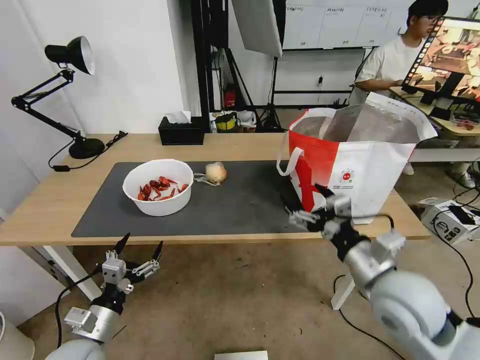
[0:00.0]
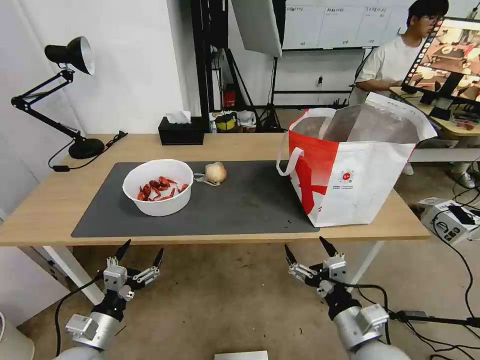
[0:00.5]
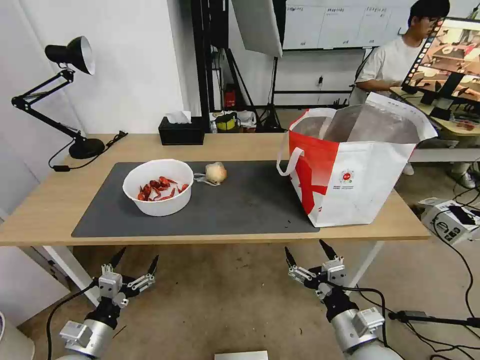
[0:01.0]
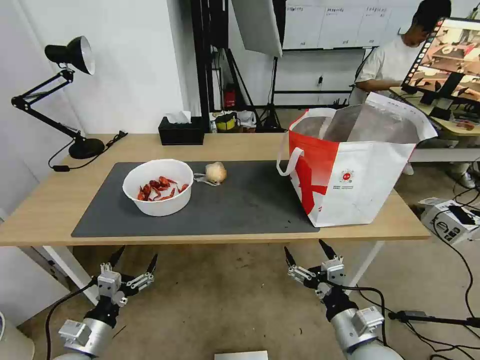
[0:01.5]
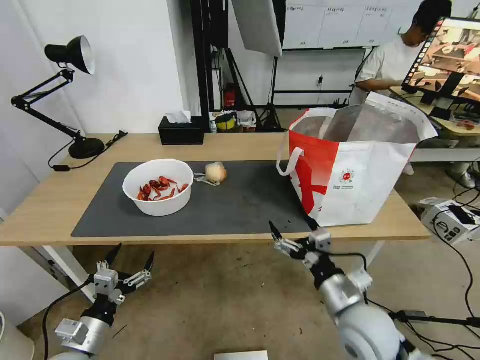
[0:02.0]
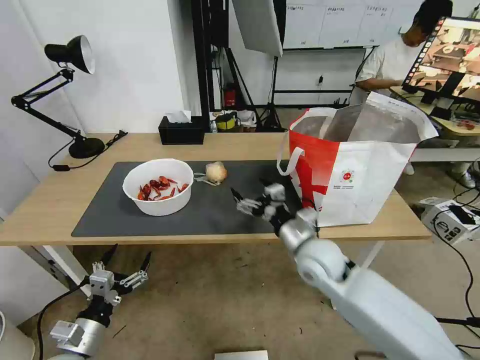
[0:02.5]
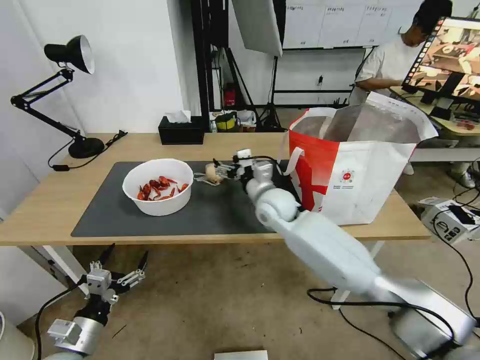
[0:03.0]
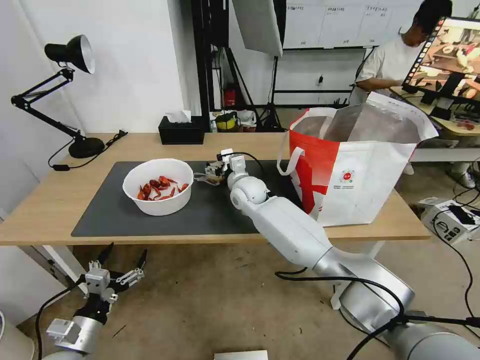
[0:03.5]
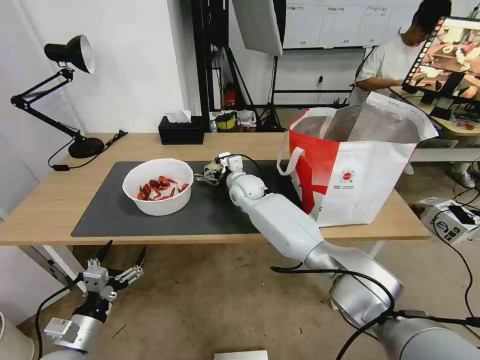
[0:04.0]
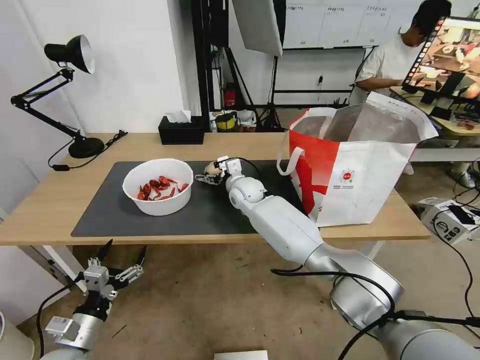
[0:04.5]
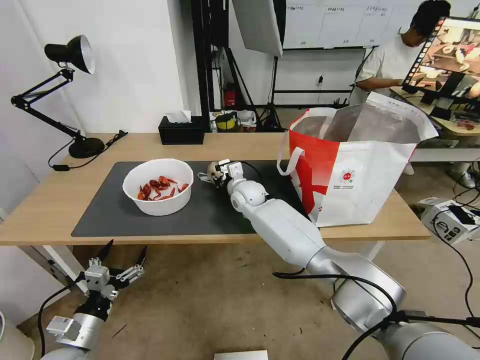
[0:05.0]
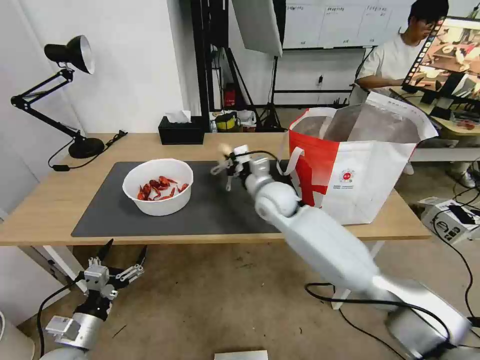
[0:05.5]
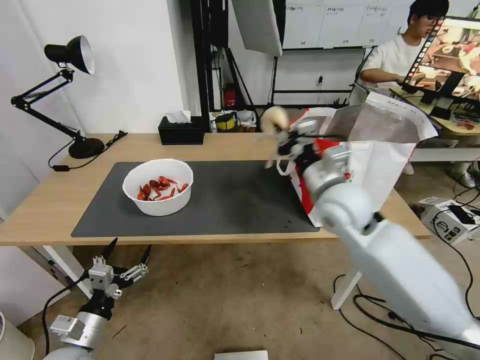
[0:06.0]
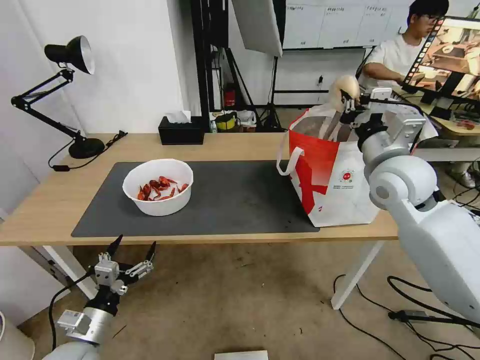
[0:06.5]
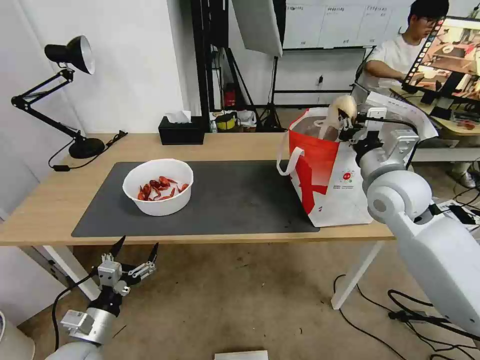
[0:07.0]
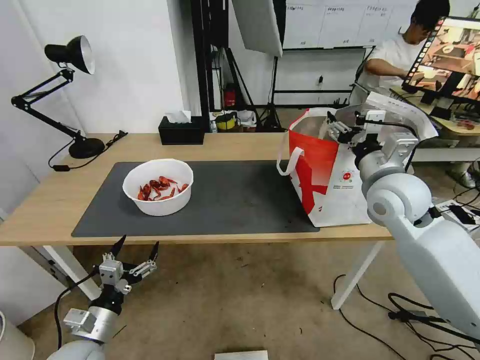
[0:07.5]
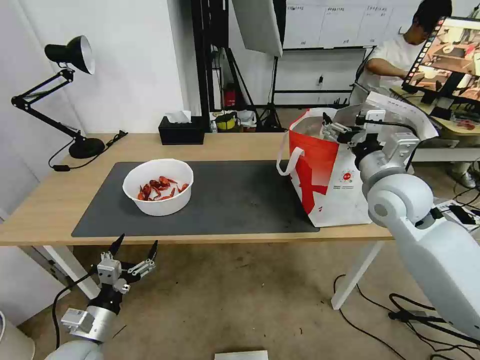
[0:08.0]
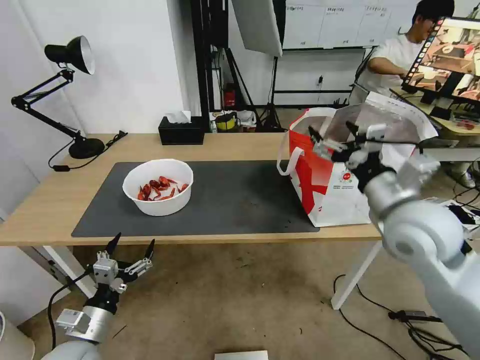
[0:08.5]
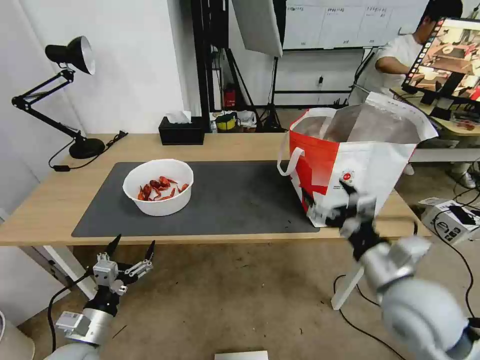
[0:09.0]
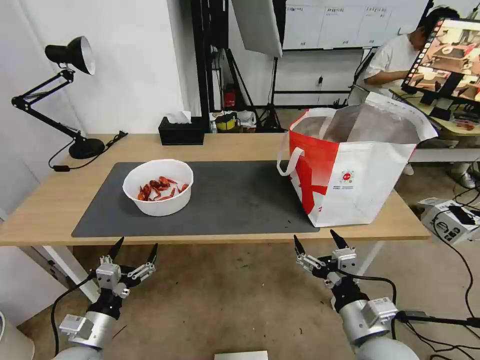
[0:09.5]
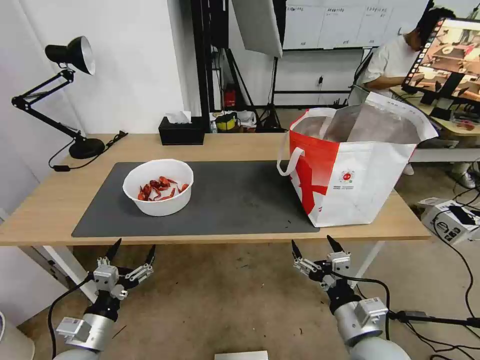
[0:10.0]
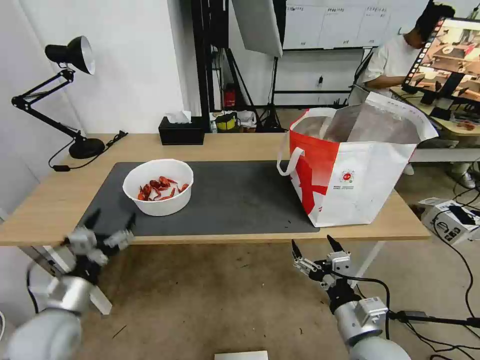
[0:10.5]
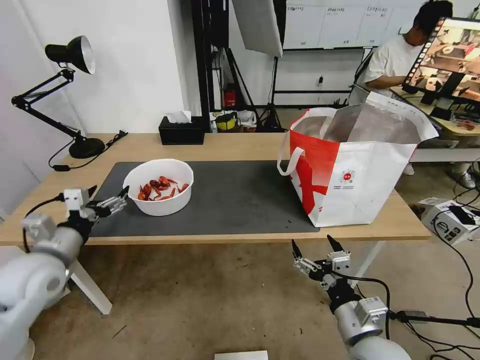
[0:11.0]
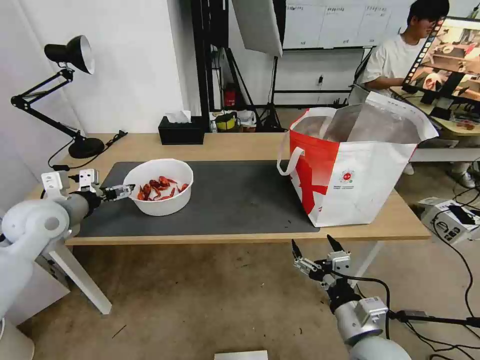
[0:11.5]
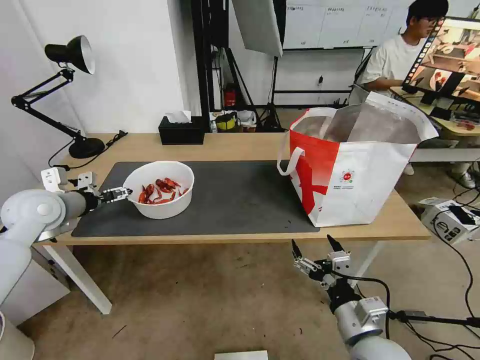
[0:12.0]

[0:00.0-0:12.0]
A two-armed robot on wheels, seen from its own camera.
Task of the whole recording: Pick up the trash from the table and place it into the takeout bag.
0:00.0 to 0:02.0: The right gripper is displaced downward by roughly 10 cm.
0:02.0 to 0:04.0: The right gripper shifts roughly 40 cm forward and to the left.
0:04.0 to 0:06.0: The right gripper goes approximately 30 cm to the right, backward and upward, and closes up.
0:06.0 to 0:08.0: The right gripper heads to the right, covering some 10 cm, and opens its fingers.
0:08.0 to 0:10.0: The right gripper goes some 30 cm backward and downward.
0:10.0 to 0:12.0: The left gripper goes some 30 cm forward and upward.

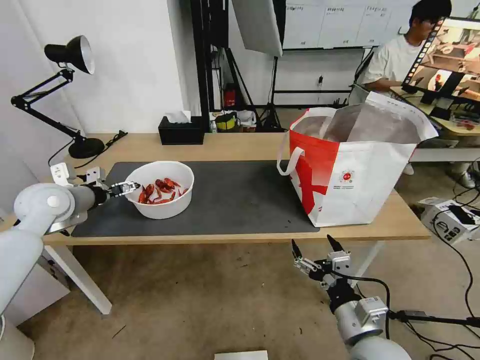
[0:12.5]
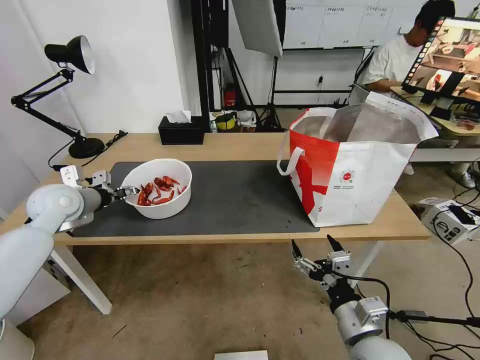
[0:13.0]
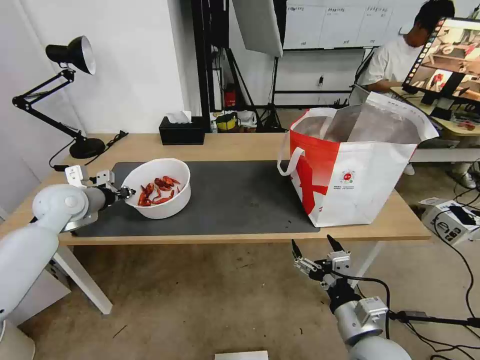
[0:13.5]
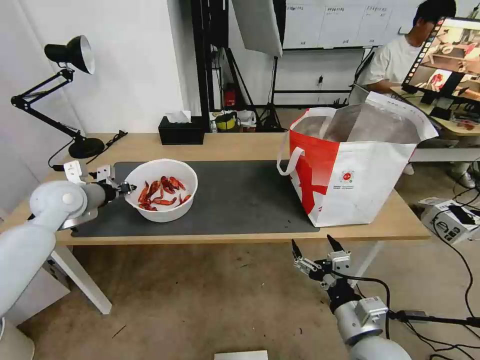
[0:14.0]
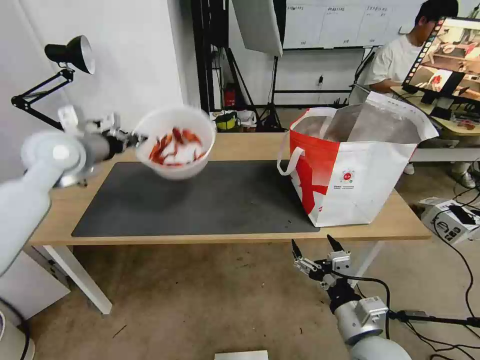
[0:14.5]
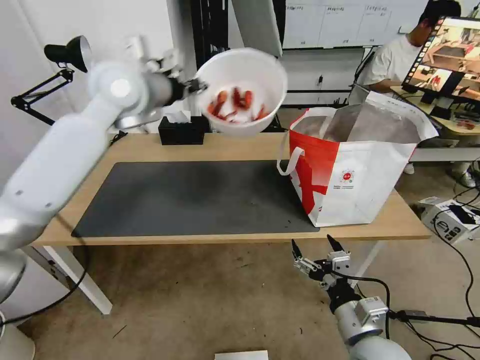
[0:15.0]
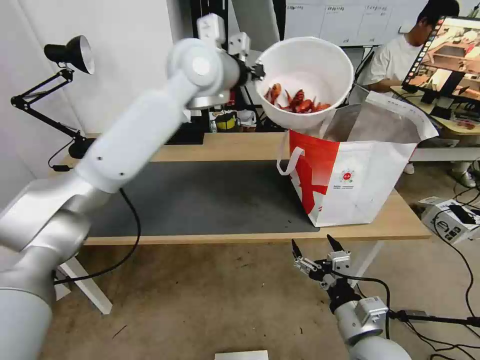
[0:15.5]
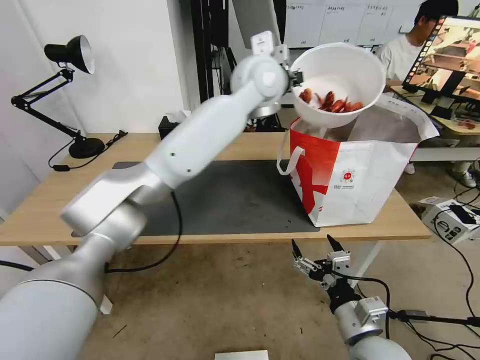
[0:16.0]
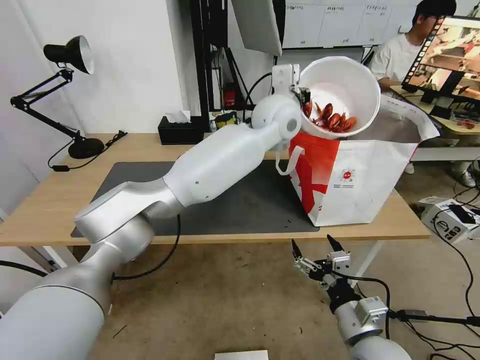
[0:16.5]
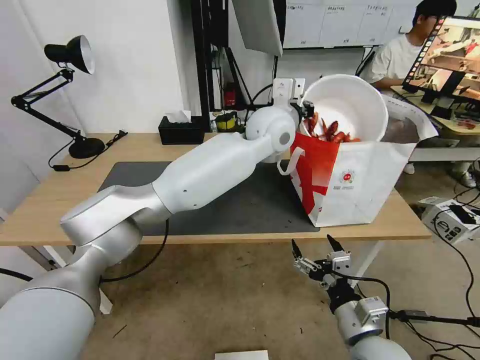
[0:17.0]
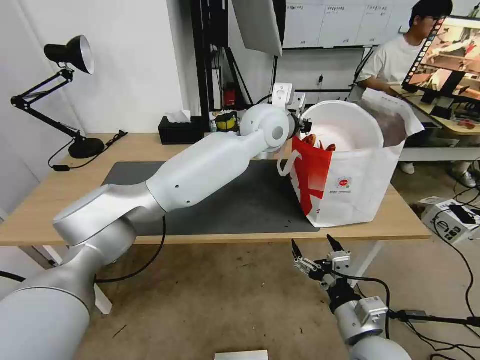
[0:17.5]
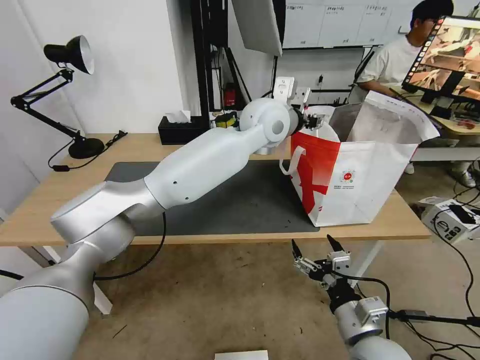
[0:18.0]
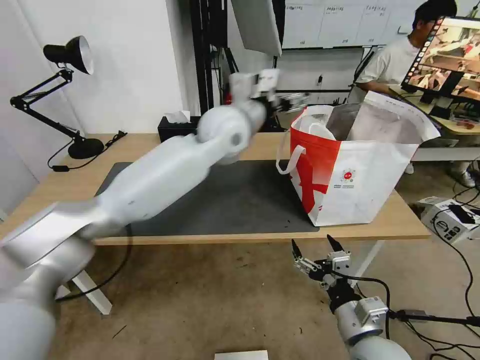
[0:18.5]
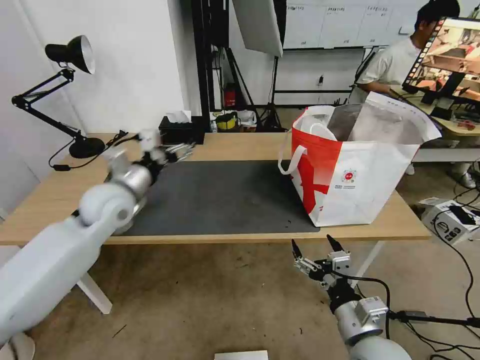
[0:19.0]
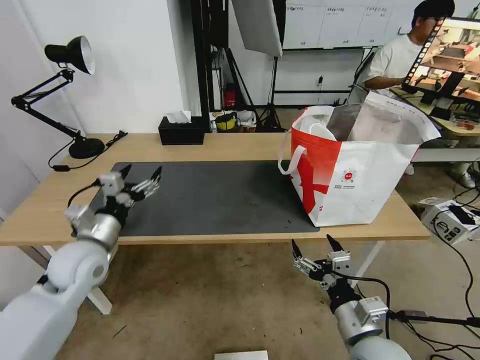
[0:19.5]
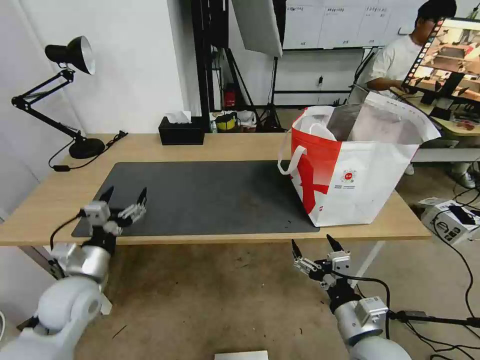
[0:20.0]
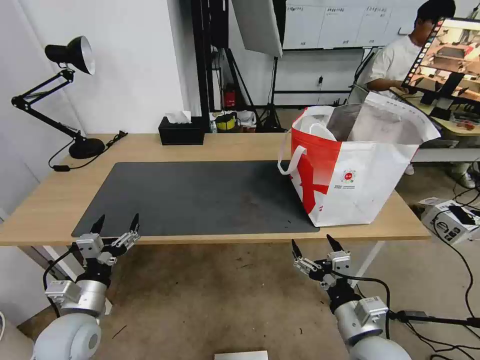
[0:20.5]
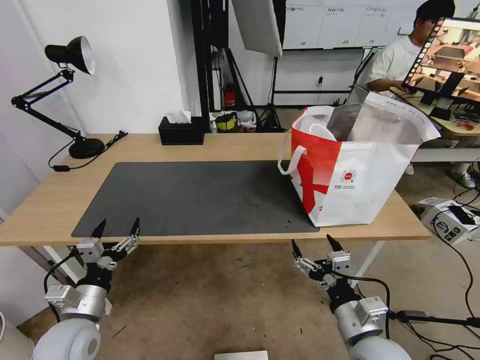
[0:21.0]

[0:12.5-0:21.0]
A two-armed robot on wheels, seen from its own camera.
Task of the whole recording: Pick up the trash from the table and place it into the takeout bag.
0:12.5 to 0:14.5: The left gripper shifts roughly 10 cm upward and to the right, and closes.
0:14.5 to 0:16.5: The left gripper travels to the right by about 40 cm.
0:16.5 to 0:19.0: The left gripper moves to the left, about 35 cm, and opens its fingers.
0:19.0 to 0:21.0: The left gripper moves backward and downward, approximately 25 cm.

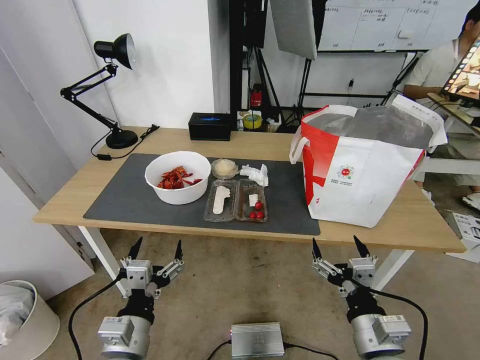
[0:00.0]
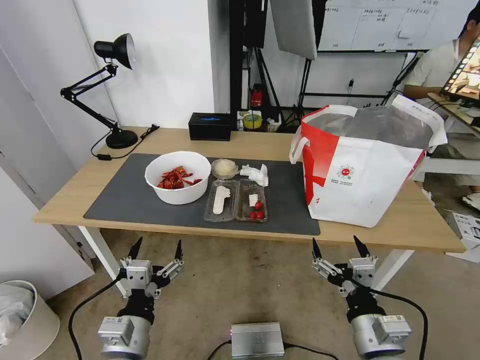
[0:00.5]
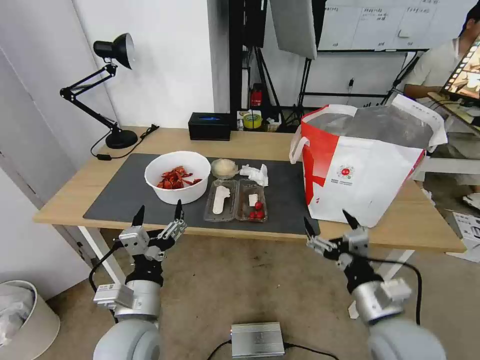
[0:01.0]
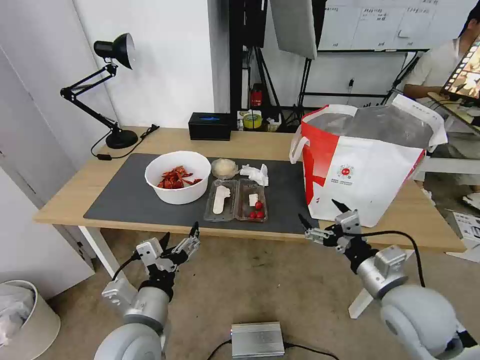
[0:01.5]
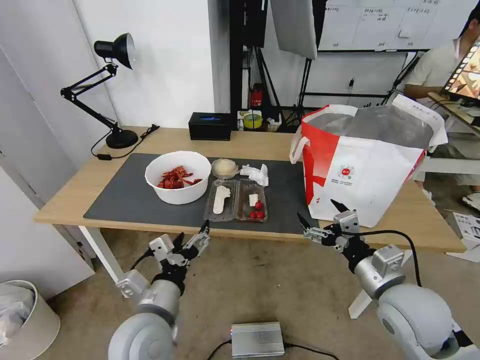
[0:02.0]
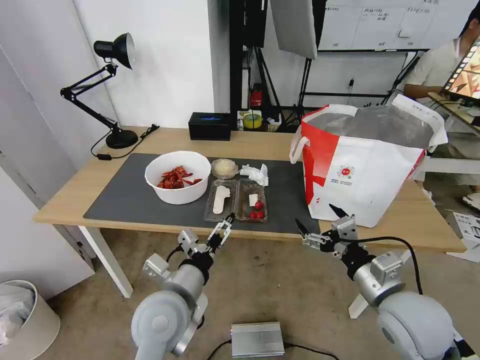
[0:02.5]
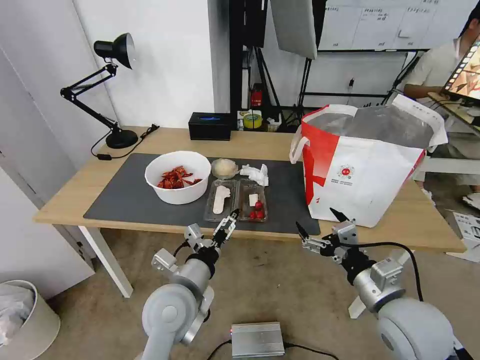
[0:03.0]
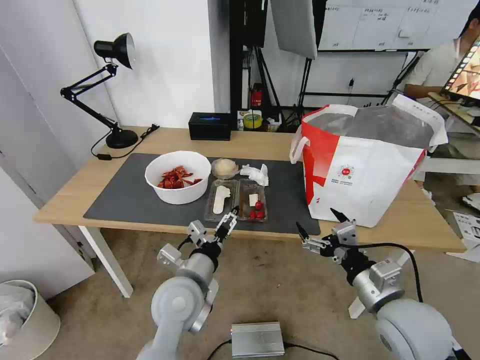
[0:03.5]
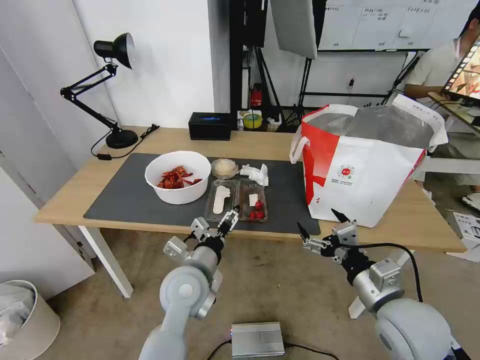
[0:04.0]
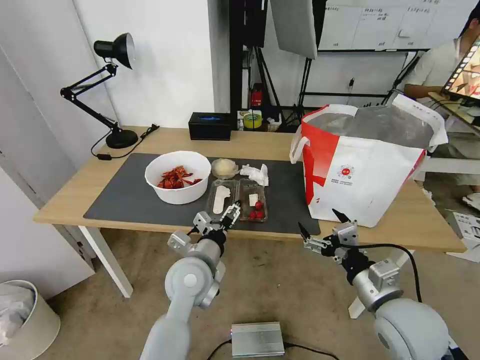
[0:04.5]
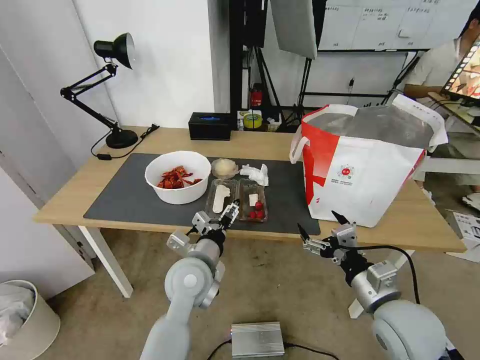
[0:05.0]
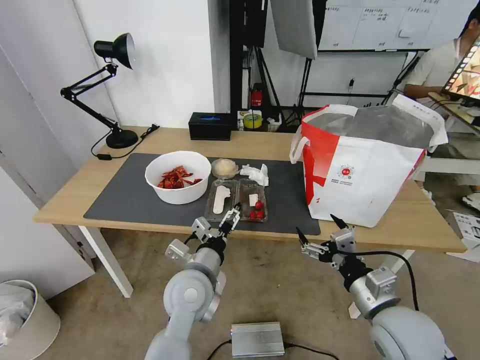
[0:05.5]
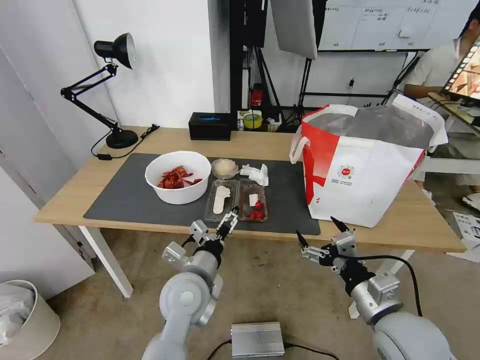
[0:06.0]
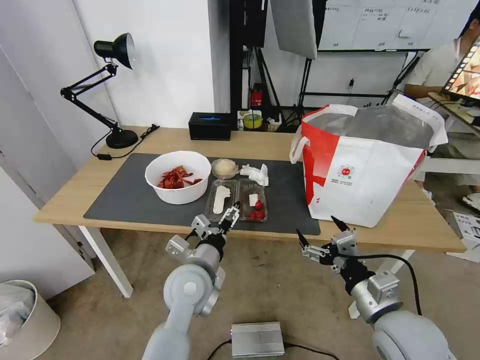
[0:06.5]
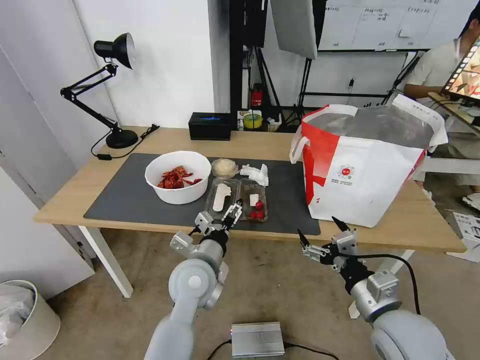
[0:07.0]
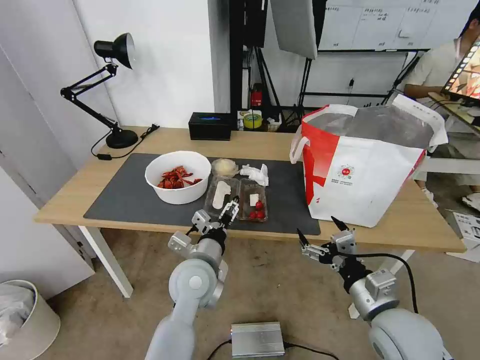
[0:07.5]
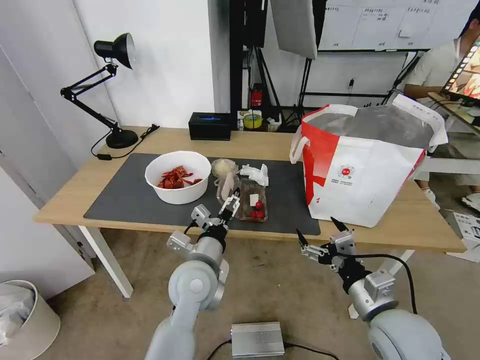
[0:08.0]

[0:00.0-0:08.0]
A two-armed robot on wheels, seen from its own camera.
Task of the whole recording: Pick up the trash from the table and place it into the takeout bag.
0:02.0 to 0:04.0: The left gripper shifts roughly 10 cm forward and to the right.
0:04.0 to 0:08.0: The grippers stay close to where they were, moving slightly.
